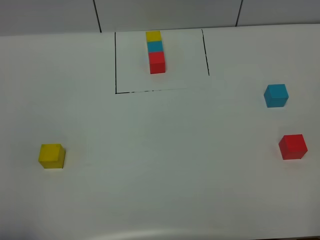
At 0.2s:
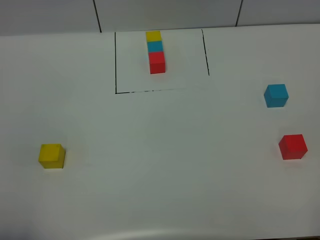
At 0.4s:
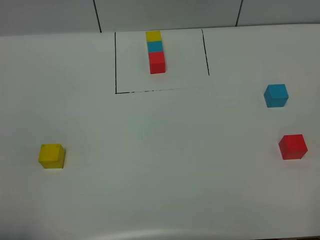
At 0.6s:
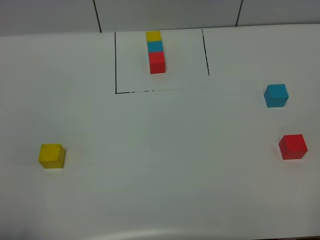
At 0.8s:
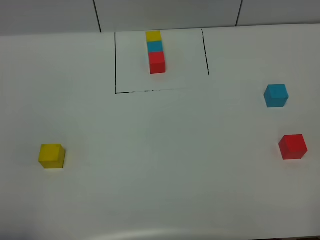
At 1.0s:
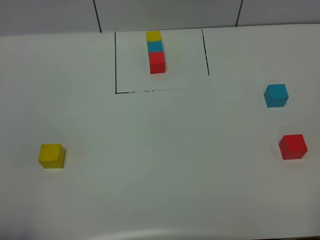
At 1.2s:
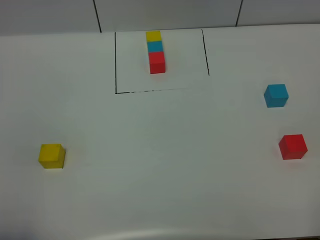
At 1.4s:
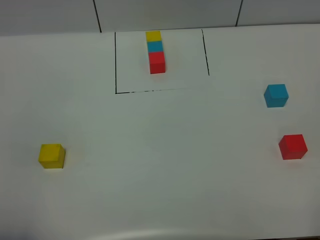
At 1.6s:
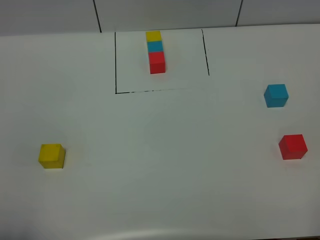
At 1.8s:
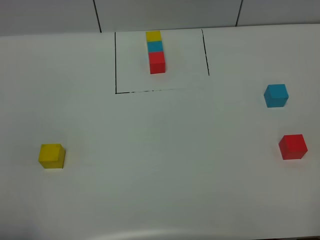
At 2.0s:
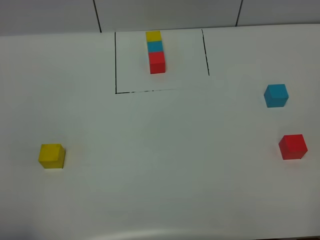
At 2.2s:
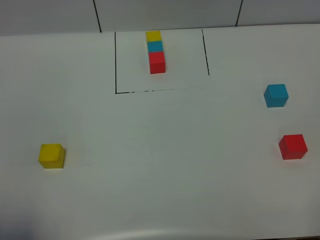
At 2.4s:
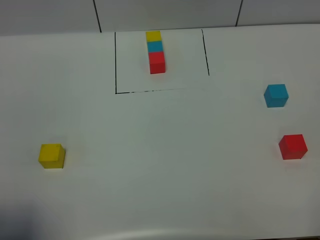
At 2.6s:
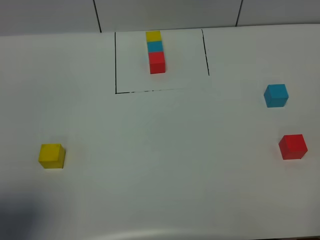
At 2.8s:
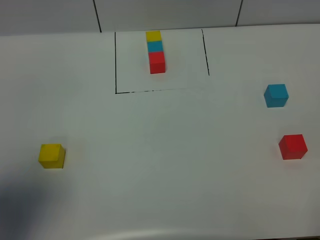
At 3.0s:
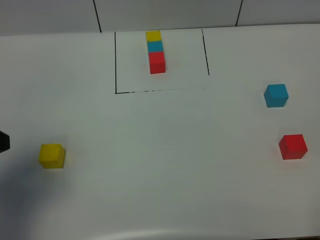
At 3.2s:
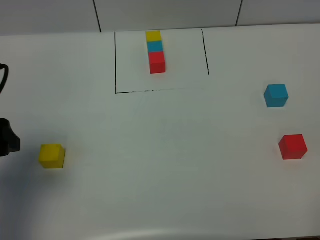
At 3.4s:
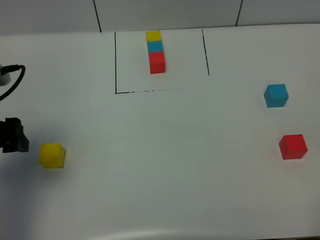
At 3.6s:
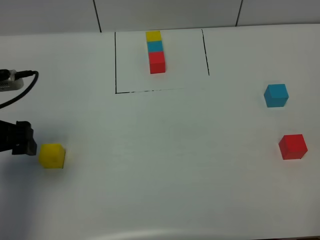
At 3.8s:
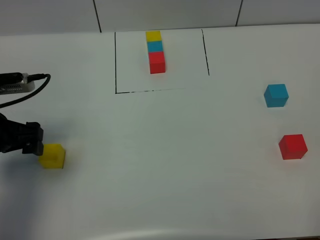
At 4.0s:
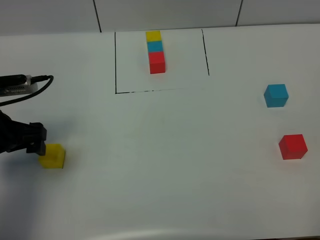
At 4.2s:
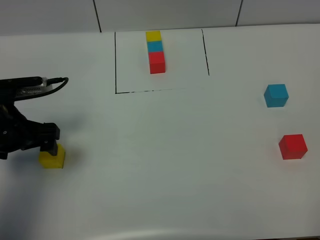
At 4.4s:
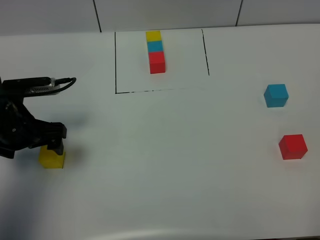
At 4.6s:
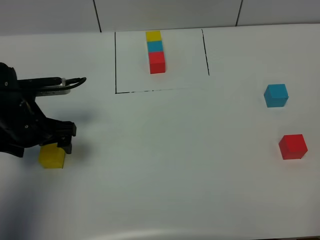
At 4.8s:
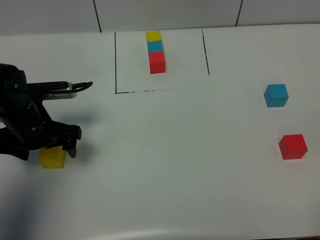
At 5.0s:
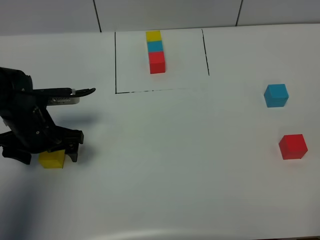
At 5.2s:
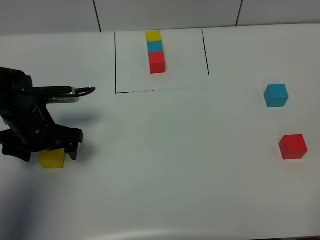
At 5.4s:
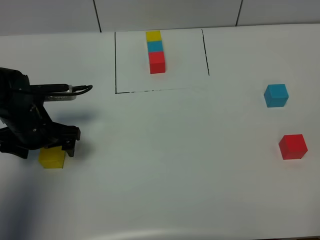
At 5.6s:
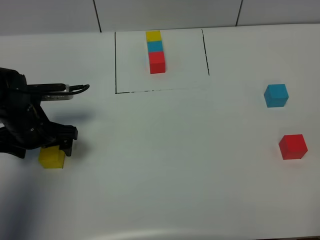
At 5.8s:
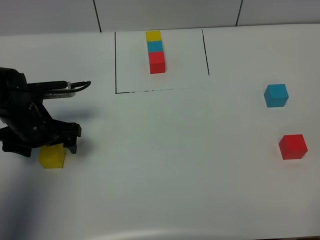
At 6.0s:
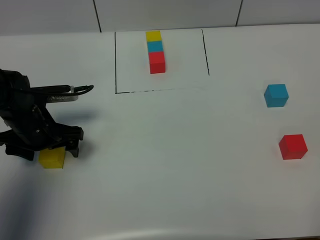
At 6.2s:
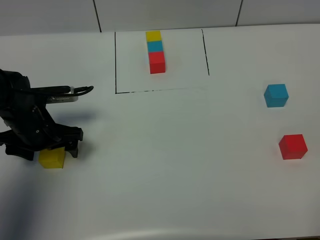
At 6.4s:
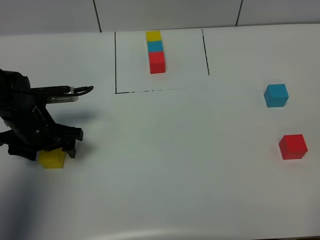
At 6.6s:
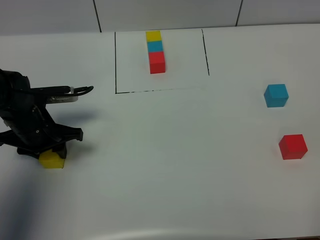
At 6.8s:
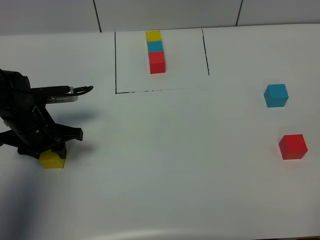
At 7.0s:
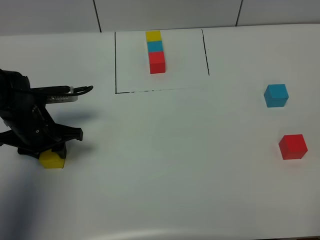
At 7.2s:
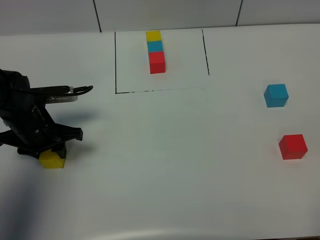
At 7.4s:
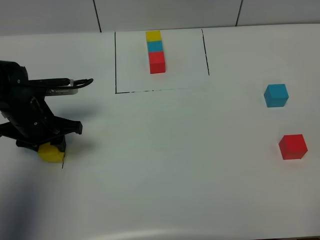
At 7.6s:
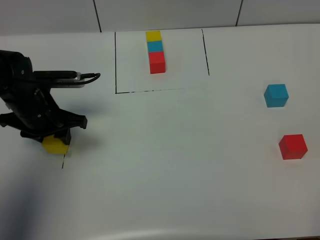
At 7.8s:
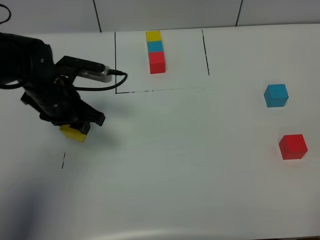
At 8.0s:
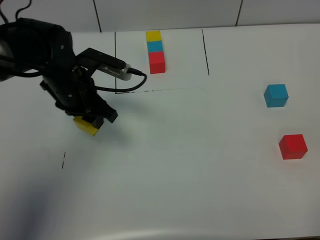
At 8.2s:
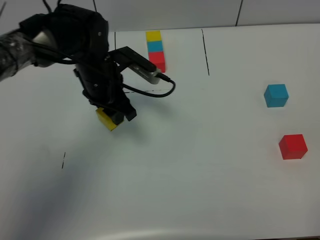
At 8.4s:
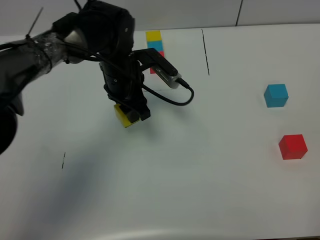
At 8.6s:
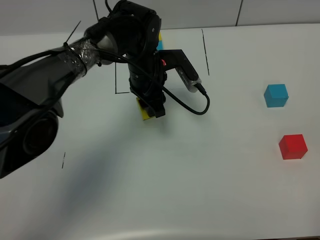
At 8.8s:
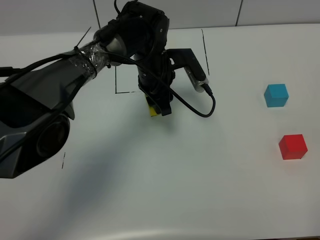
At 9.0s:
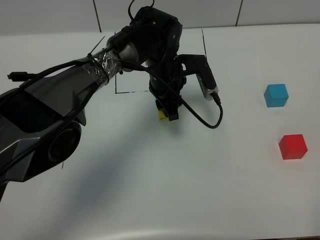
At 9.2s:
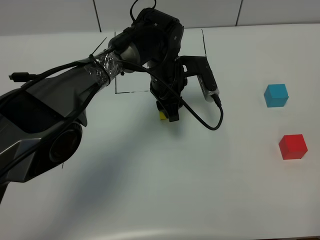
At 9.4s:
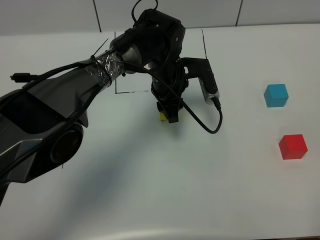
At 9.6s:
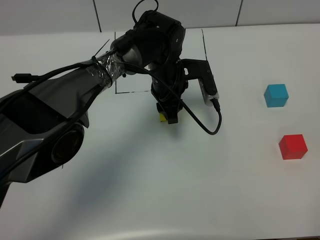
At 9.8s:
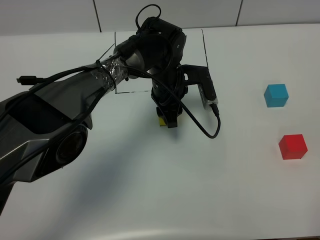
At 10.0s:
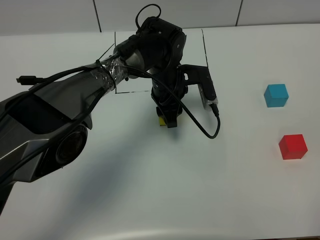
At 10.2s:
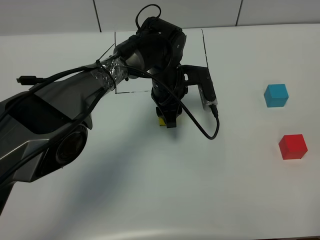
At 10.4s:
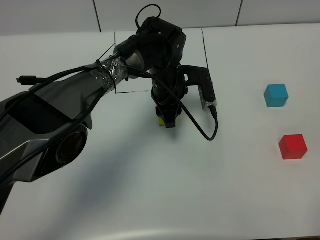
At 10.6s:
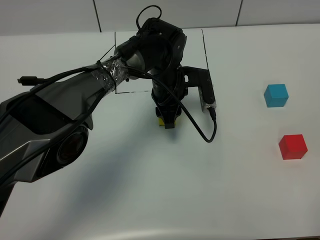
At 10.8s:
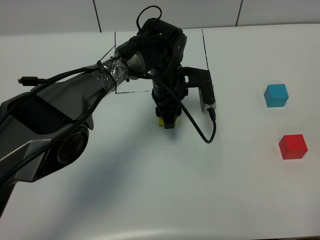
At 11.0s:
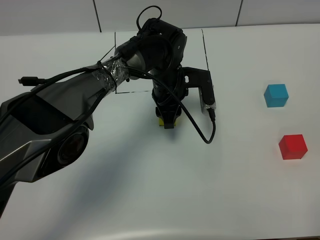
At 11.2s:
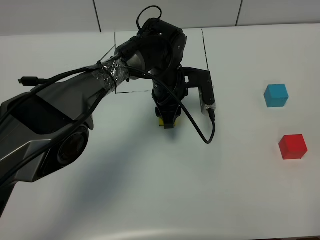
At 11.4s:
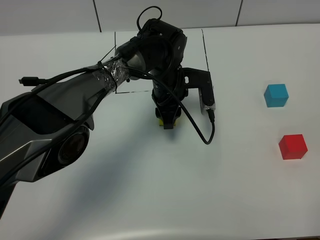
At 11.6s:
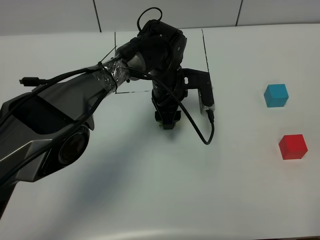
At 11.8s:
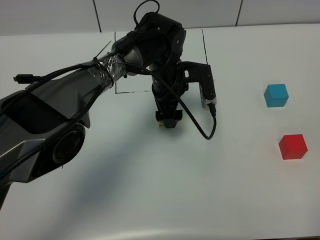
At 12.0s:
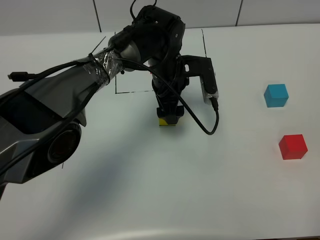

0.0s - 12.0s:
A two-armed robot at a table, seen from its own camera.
Task of the whole recording: According to the building block template in front, assemble the scattered blocks together.
Step, 0.0s - 11.4s: Put the yellow build block in the center of the table.
0.0s - 1.6s: Neither gripper changes place.
1.6s - 3.0s: The left gripper travels forward by about 15 cm, and opens.
3.0s - 4.4s: The left gripper is displaced downward and forward by some 15 cm.
4.4s - 6.0s: The left gripper shifts by about 5 cm.
6.0s - 7.6s: The left gripper closes its fingers.
7.6s - 9.0s: The left gripper goes about 25 cm to the right.
9.0s - 10.4s: There are only small adjustments of the grippers.
10.4s - 12.0s: The left gripper opens up.

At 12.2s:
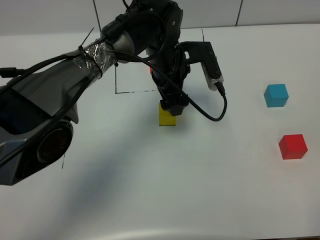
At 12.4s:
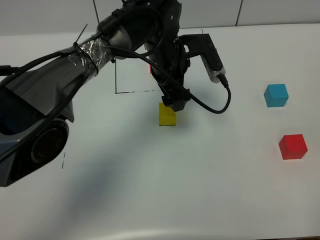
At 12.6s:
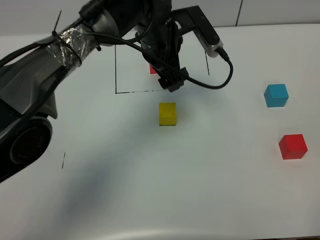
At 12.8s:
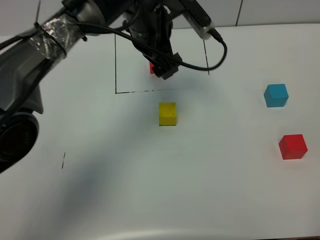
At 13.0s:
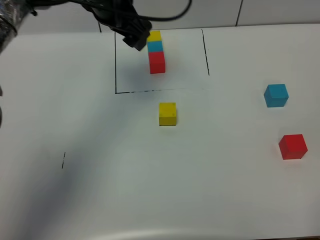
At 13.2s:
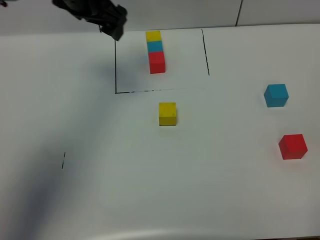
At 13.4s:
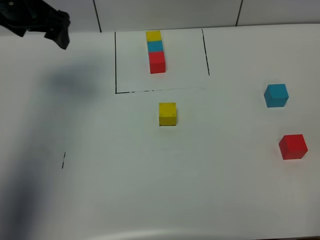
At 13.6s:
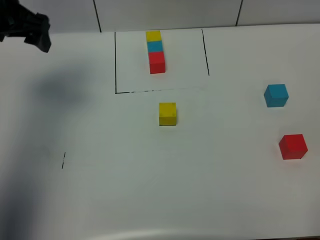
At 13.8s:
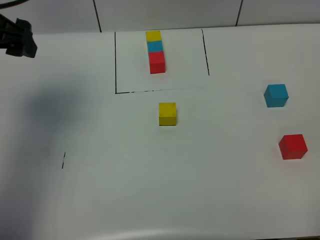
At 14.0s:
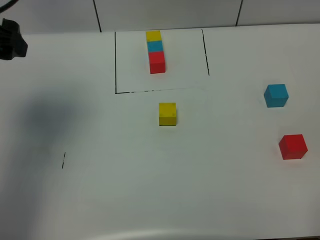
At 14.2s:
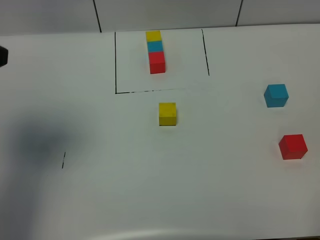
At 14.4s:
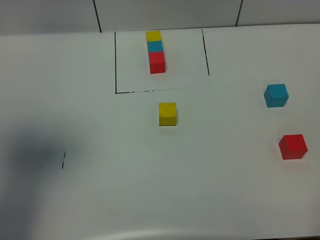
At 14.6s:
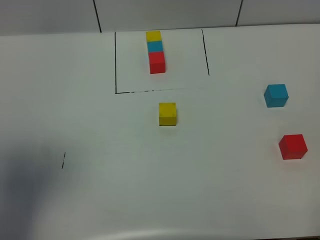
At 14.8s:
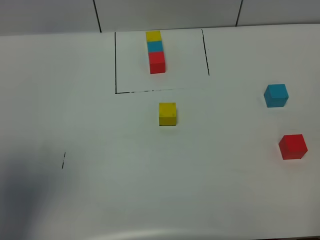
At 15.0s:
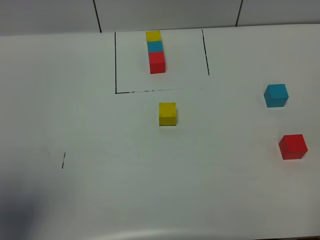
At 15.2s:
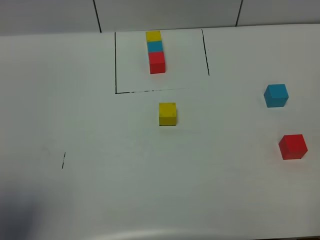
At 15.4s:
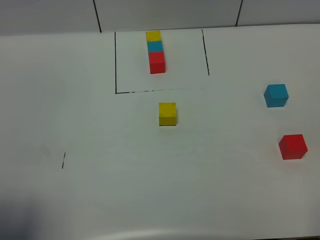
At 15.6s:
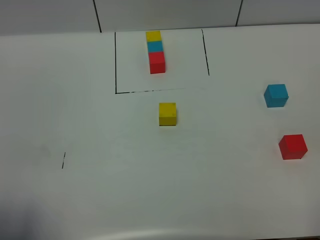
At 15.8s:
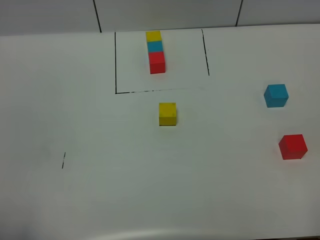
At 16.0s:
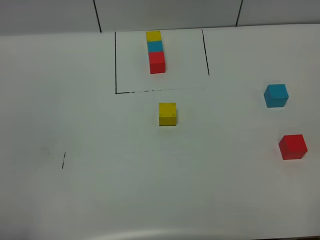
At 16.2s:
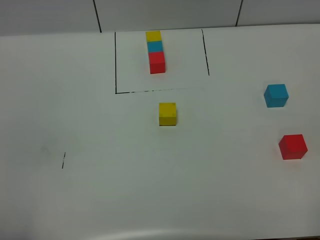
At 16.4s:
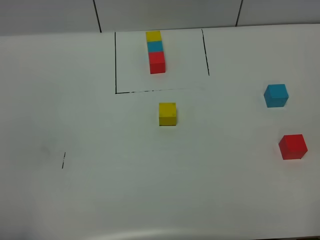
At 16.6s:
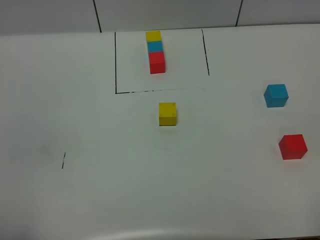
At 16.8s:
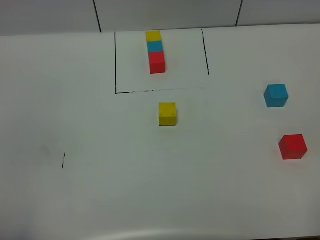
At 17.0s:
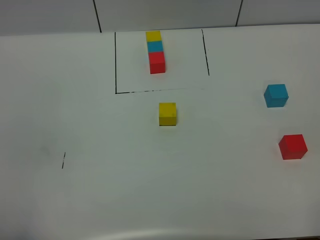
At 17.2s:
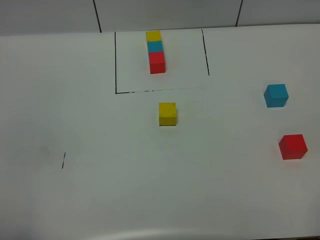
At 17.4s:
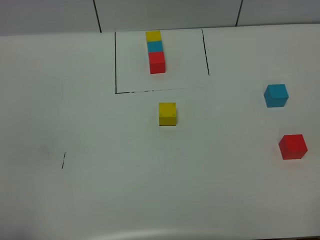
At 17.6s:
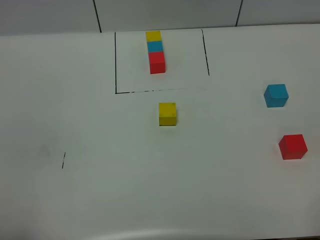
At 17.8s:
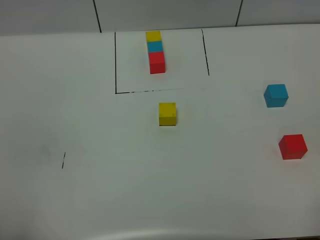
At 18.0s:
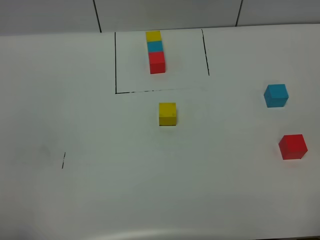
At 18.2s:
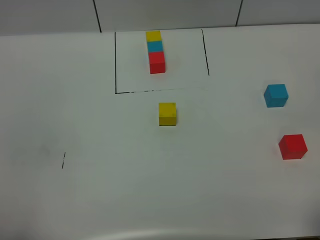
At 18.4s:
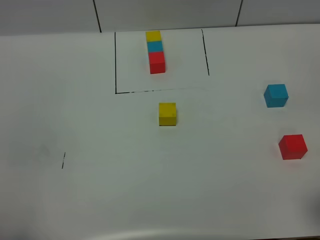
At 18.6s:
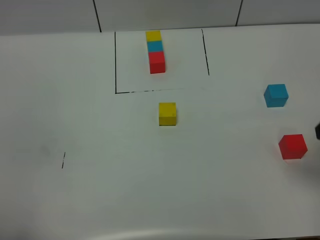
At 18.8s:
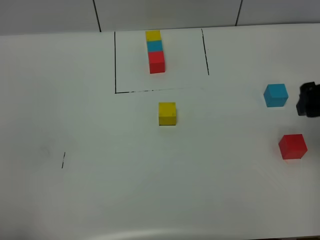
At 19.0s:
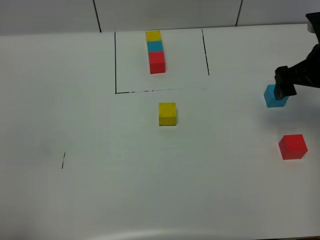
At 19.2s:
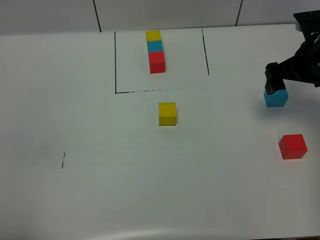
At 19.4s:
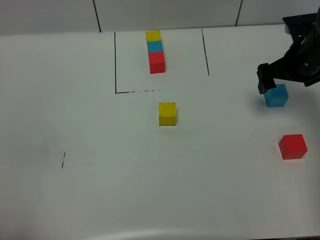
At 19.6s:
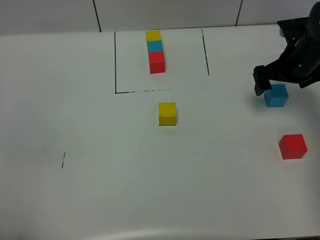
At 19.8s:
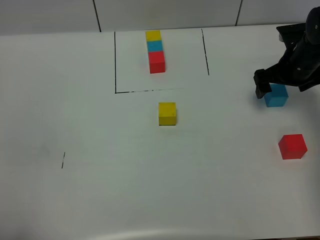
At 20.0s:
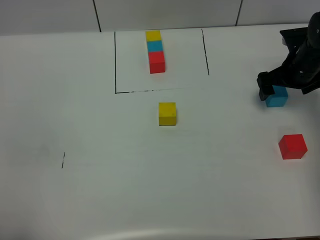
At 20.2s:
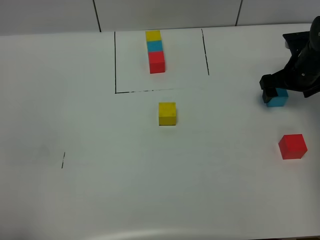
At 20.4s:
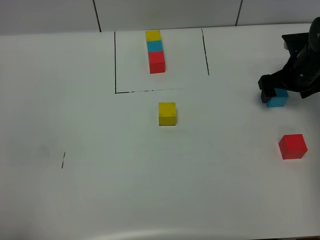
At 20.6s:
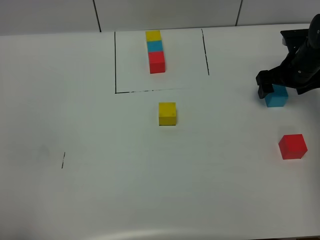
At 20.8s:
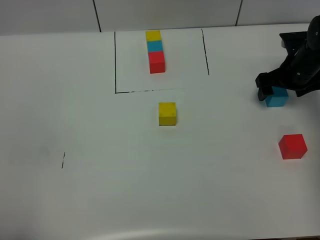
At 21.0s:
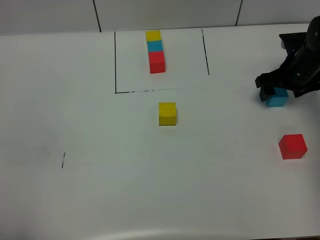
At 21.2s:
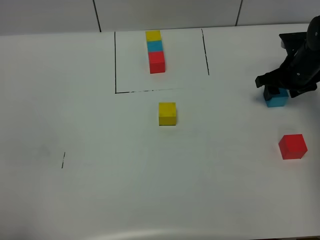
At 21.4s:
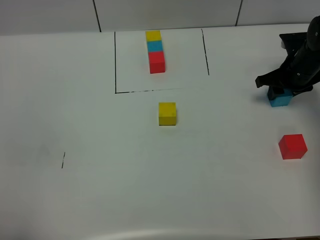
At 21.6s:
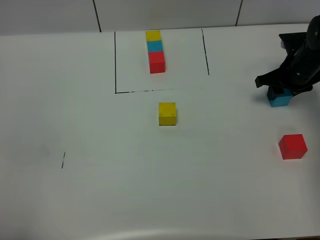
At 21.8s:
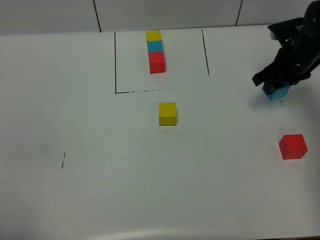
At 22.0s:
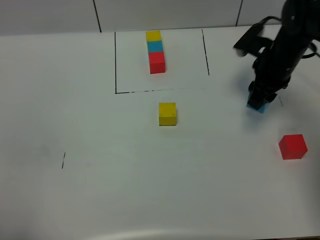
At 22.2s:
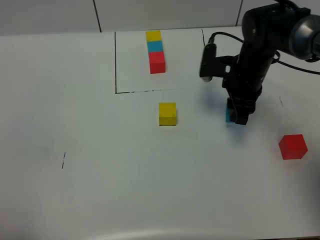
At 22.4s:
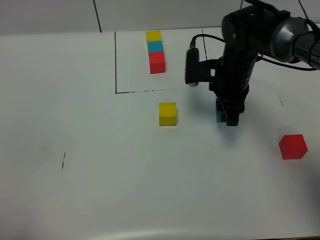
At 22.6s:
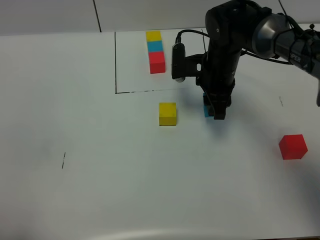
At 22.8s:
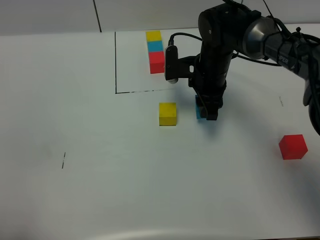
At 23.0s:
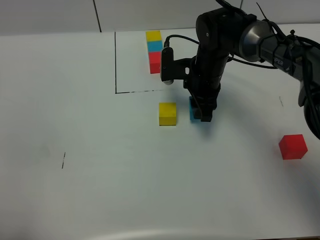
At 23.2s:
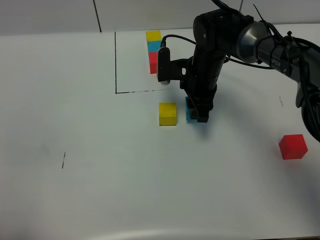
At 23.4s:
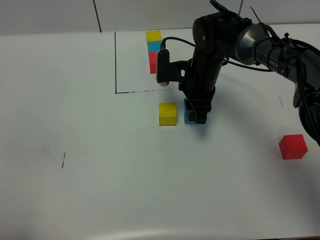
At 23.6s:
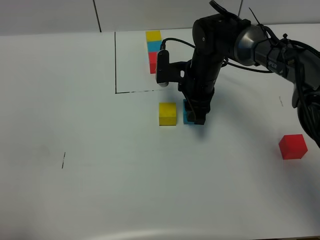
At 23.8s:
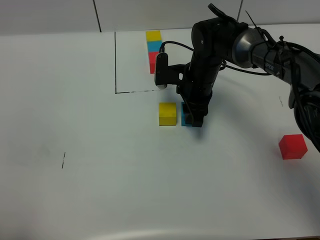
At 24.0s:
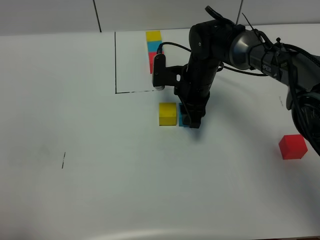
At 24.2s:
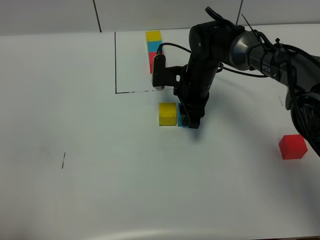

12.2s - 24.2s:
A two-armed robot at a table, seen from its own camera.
Task of the whole recording: According to the building block template in front, assemble the scattered blocks together.
12.2s - 13.8s: The left gripper shifts about 30 cm to the left and upward.
13.8s - 15.2s: The left gripper shifts about 25 cm backward.
15.2s - 16.6s: The left gripper travels backward and downward by about 10 cm.
18.2s - 19.8s: The right gripper moves forward, about 35 cm.
19.8s - 21.2s: The right gripper closes.
21.2s - 22.6s: The right gripper heads to the left, covering approximately 20 cm.
22.6s - 24.2s: The right gripper shifts by some 5 cm.
